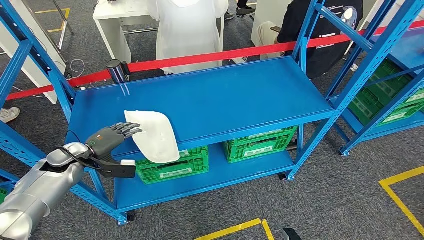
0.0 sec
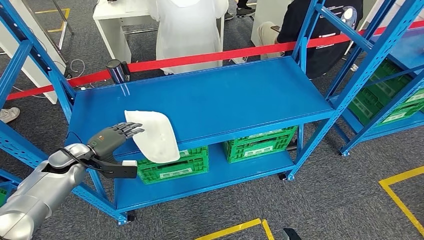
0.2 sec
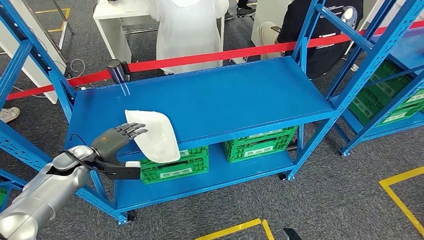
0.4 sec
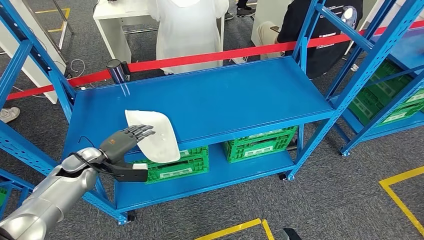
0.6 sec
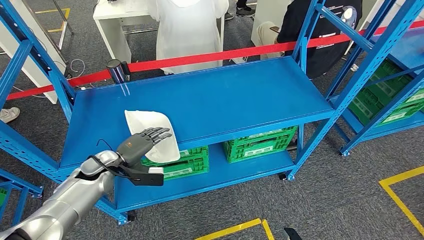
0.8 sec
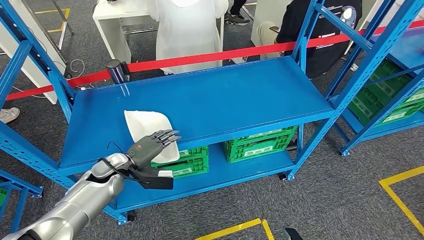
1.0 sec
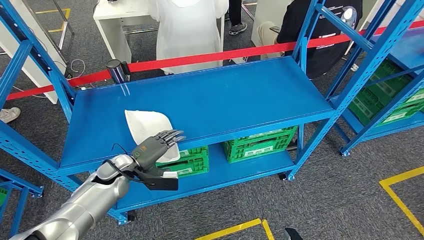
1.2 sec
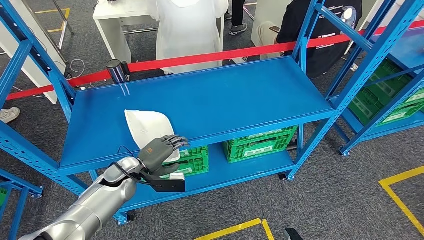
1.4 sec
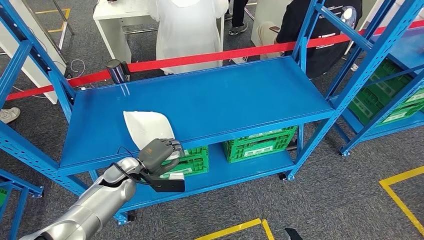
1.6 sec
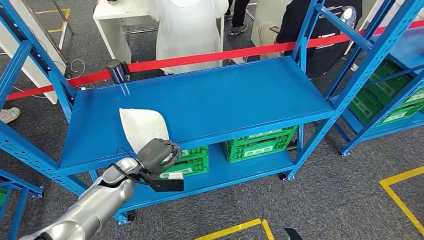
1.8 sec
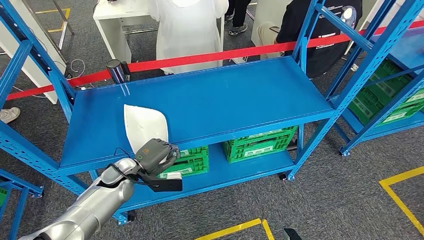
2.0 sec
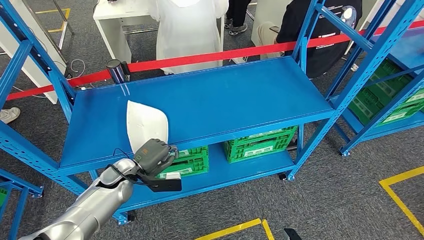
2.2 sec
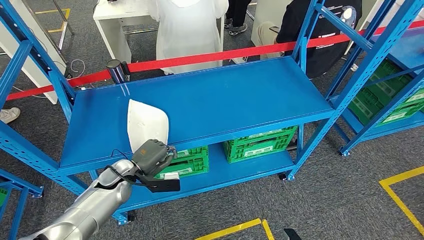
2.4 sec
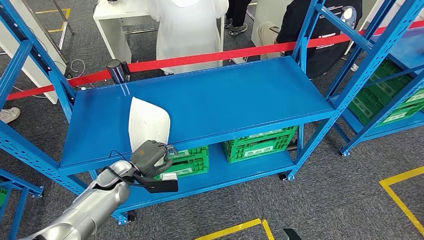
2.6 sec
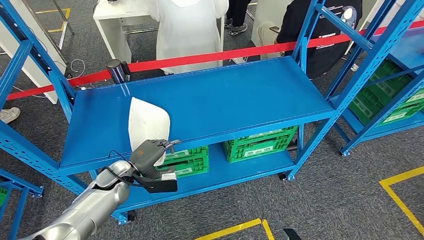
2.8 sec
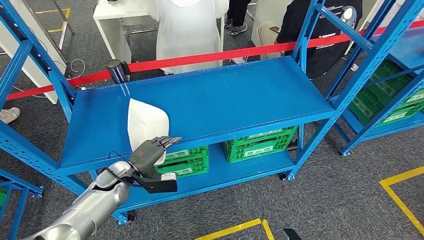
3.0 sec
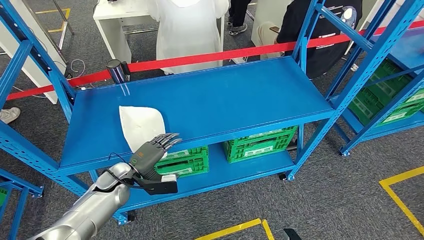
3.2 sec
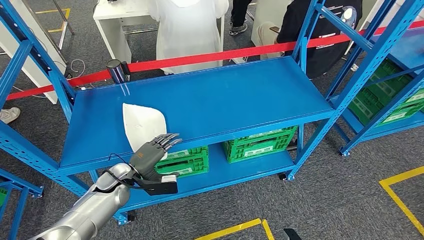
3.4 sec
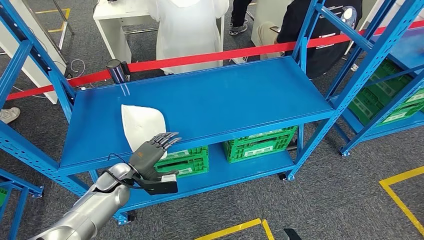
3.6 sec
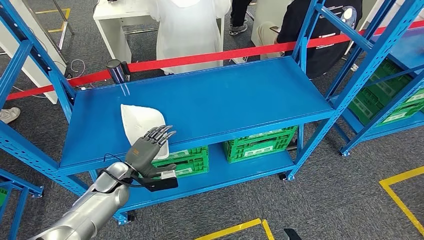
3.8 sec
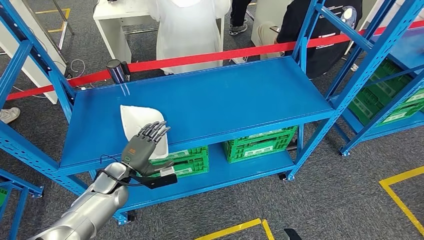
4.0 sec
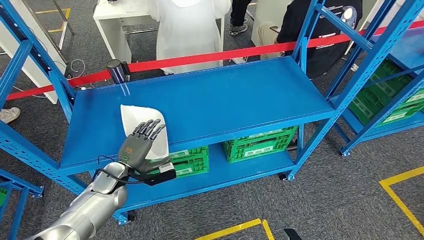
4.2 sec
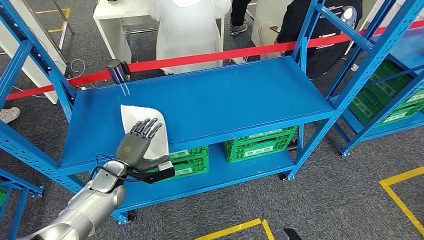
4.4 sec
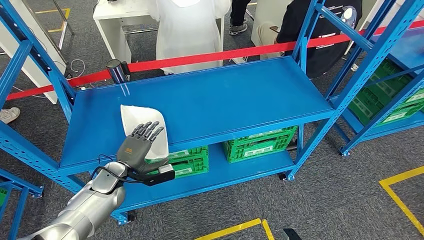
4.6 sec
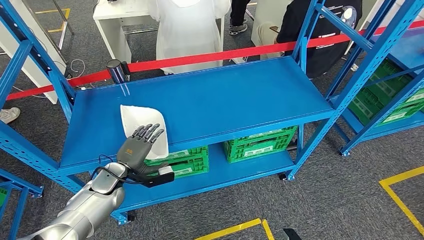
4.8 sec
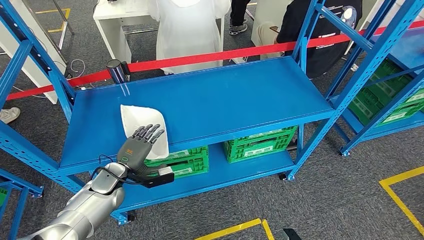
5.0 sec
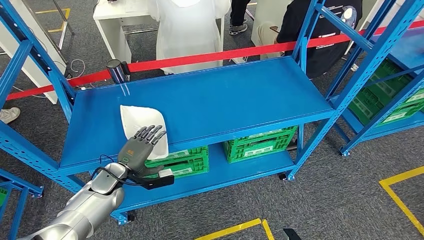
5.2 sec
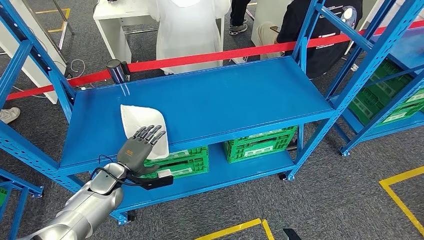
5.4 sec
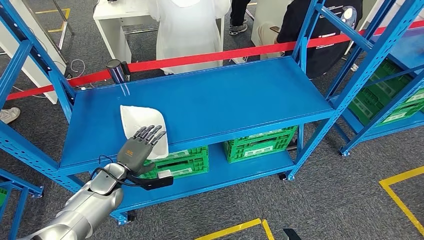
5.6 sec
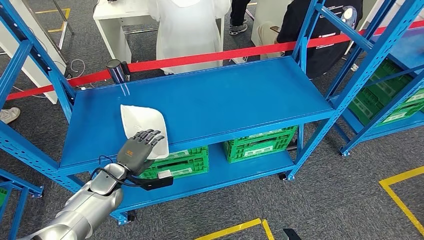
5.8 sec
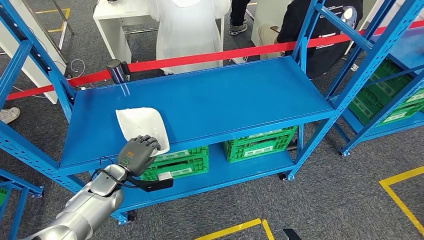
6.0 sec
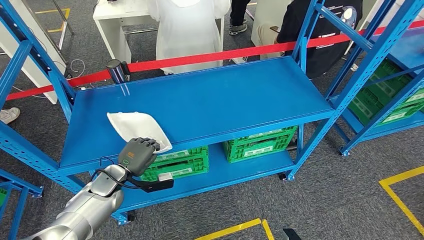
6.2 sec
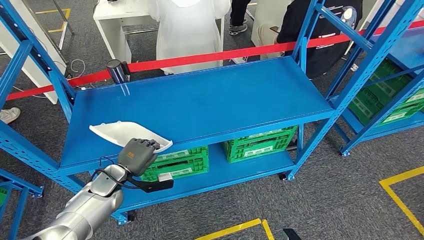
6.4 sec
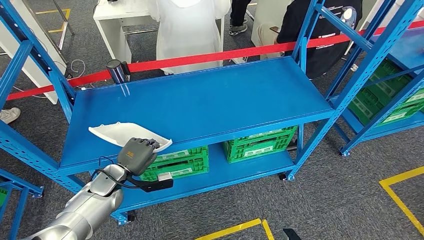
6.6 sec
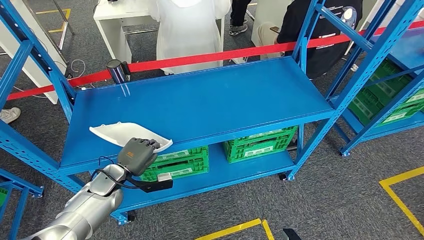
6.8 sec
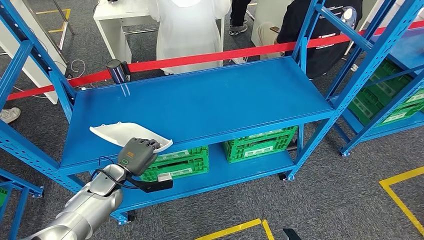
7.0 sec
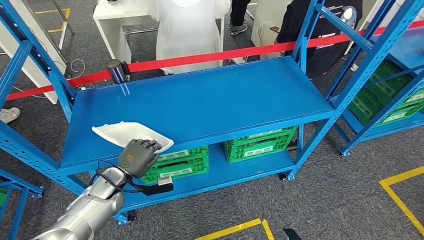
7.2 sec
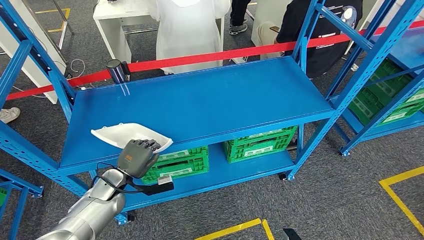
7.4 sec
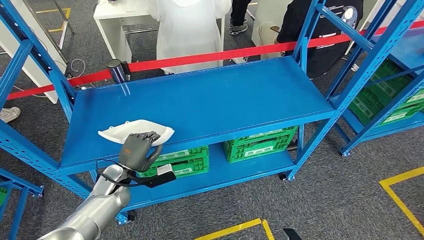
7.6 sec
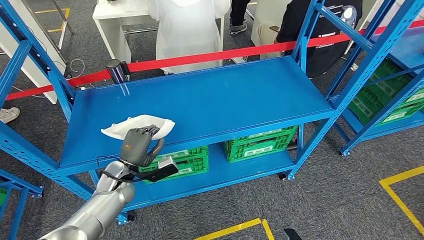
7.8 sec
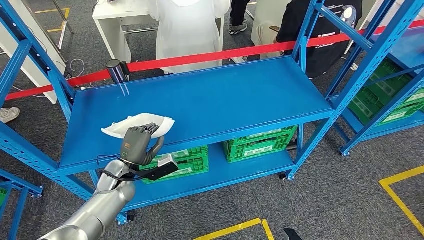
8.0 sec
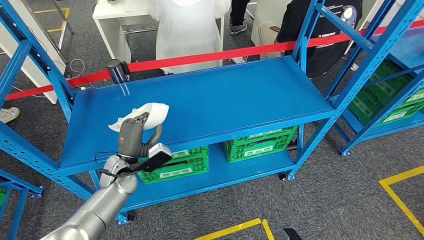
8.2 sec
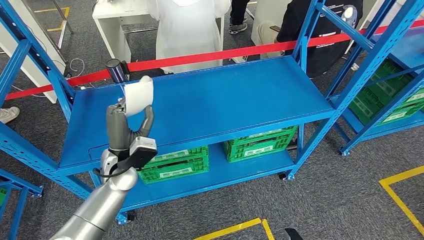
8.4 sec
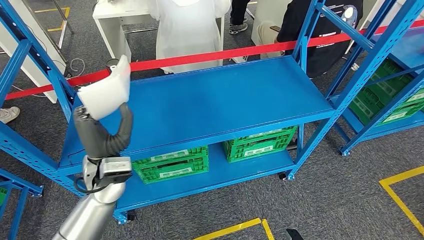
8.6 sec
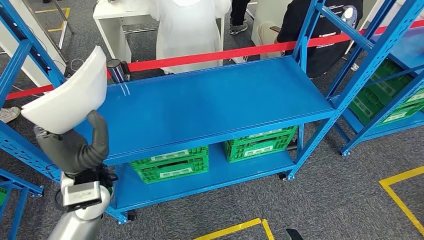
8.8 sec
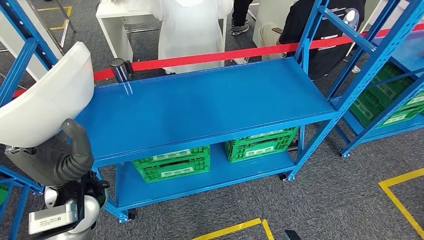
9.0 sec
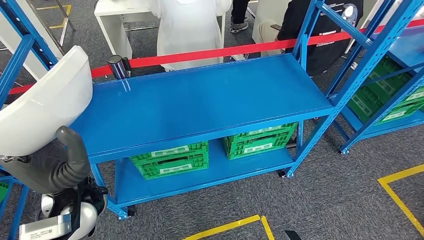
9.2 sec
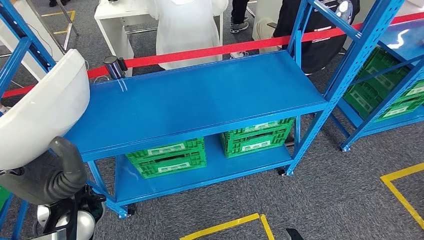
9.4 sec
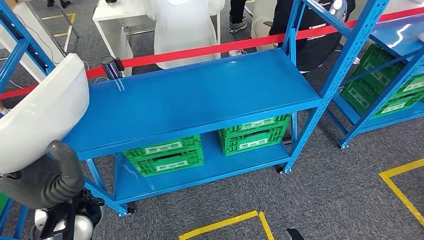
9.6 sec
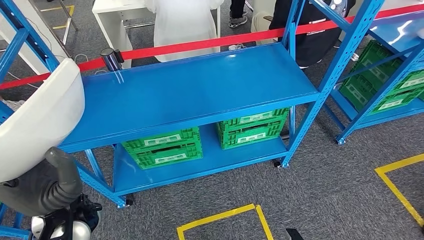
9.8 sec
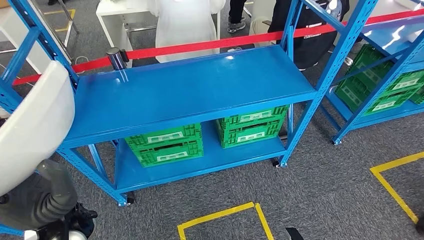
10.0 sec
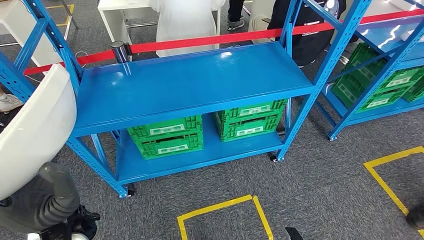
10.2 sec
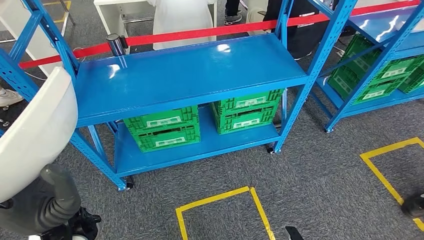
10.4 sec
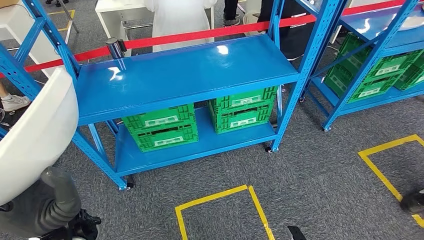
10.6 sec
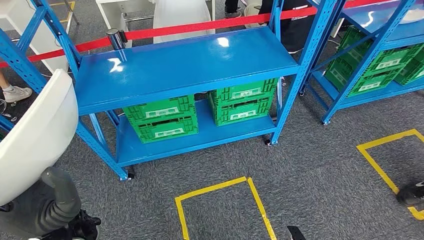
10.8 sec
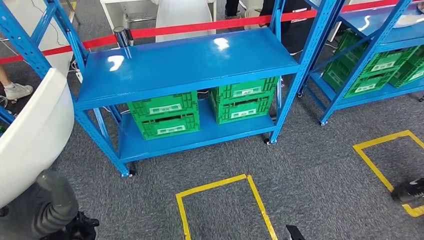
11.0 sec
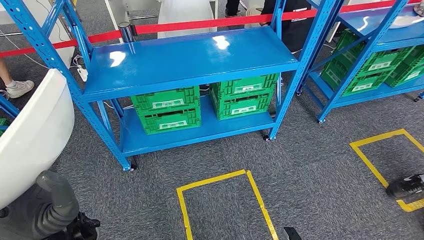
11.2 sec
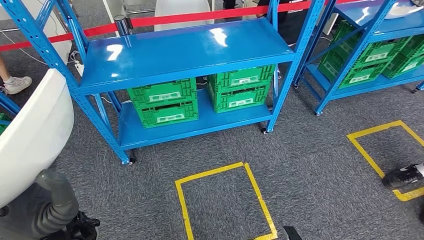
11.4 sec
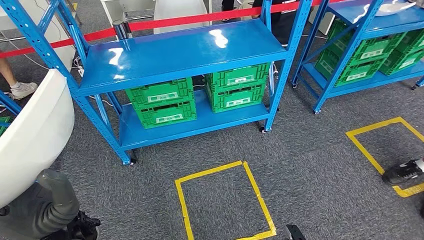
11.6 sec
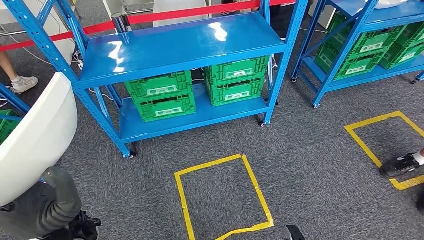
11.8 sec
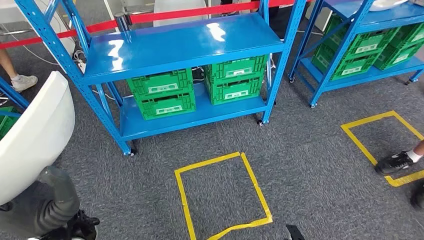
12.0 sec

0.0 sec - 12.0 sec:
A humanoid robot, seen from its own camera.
Step, 0.0 sec - 10.2 sec: Pick up the small component from the shelf.
0.0 sec - 1.6 sec: The left hand shifts roughly 15 cm to the right.
1.6 sec - 3.0 sec: The hands make only small movements.
4.4 sec - 6.0 sec: There are only small adjustments of the hands.

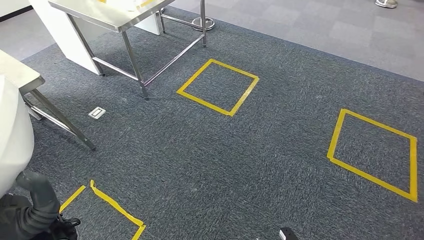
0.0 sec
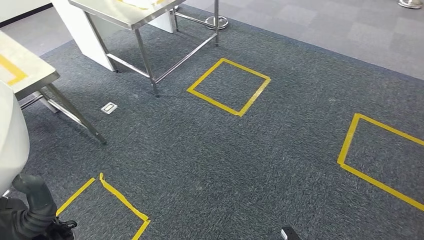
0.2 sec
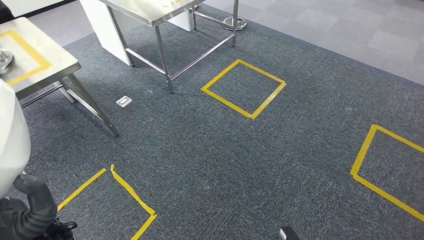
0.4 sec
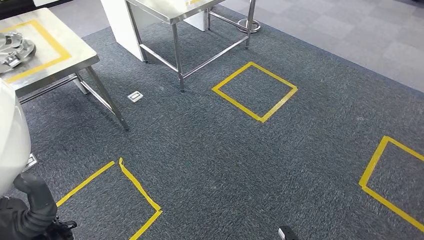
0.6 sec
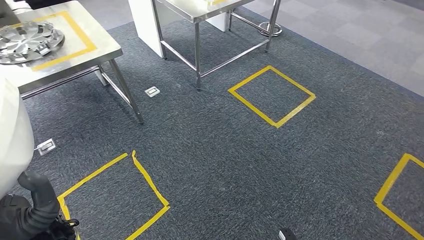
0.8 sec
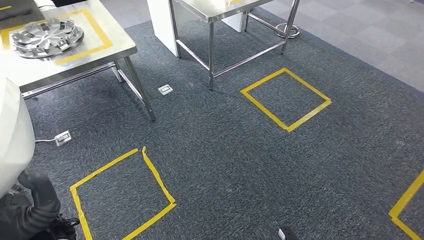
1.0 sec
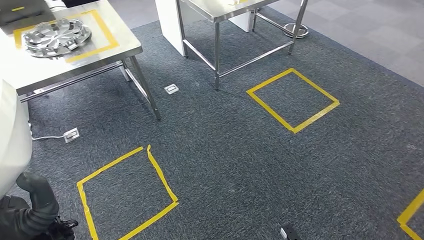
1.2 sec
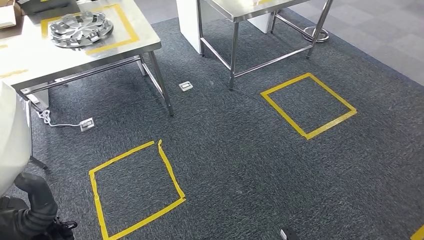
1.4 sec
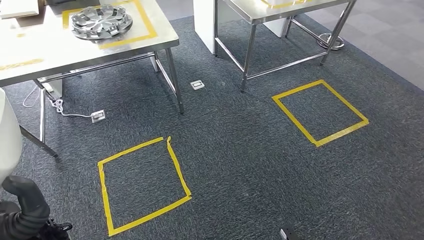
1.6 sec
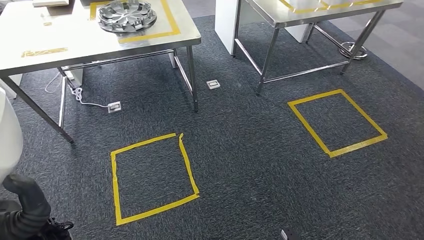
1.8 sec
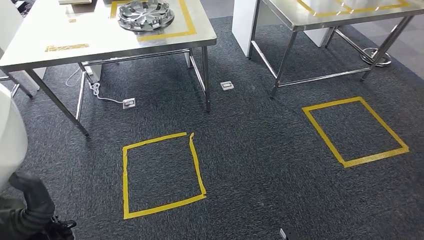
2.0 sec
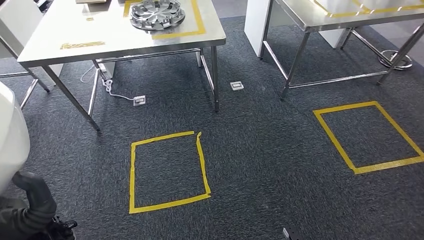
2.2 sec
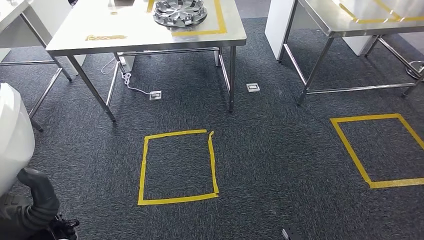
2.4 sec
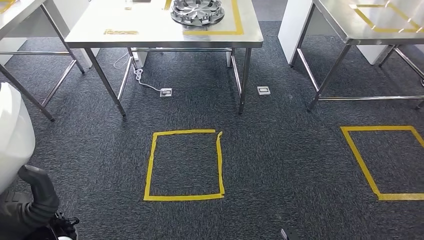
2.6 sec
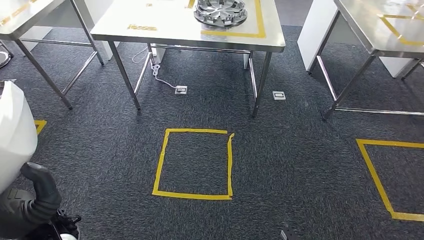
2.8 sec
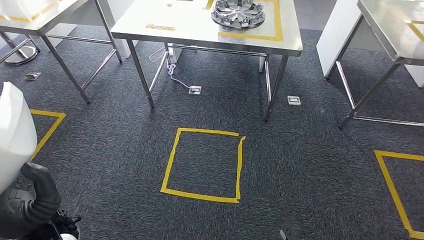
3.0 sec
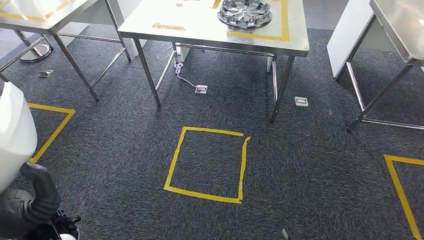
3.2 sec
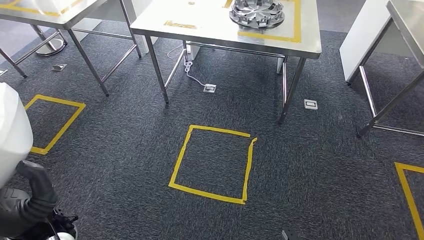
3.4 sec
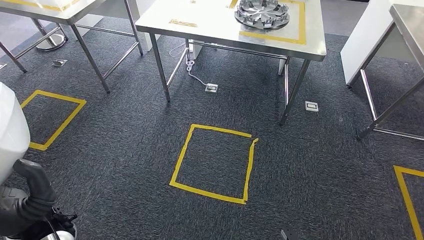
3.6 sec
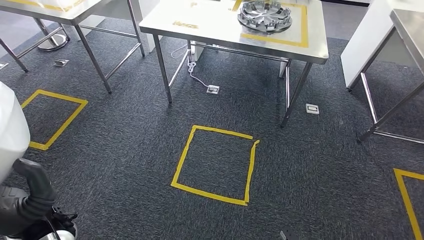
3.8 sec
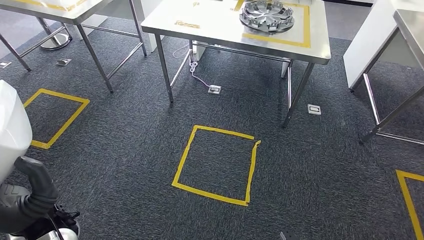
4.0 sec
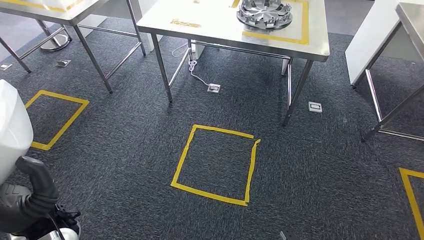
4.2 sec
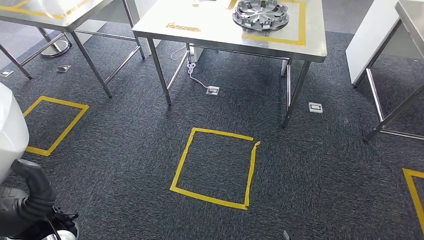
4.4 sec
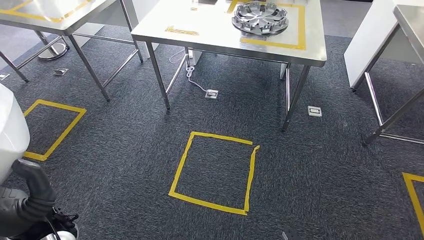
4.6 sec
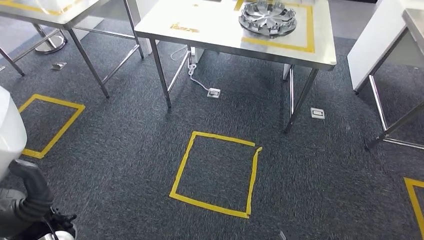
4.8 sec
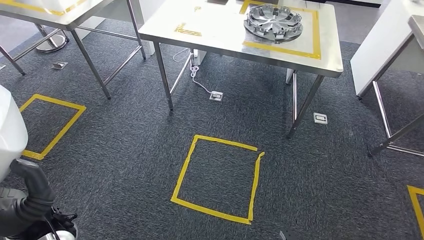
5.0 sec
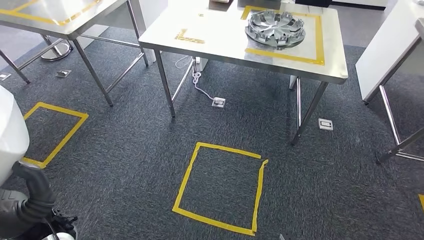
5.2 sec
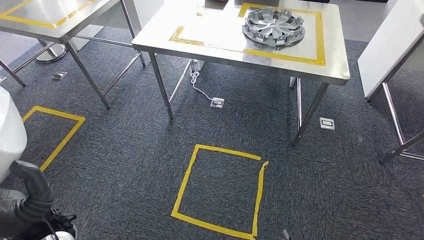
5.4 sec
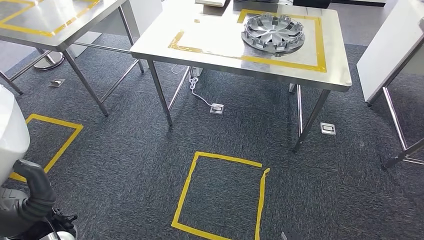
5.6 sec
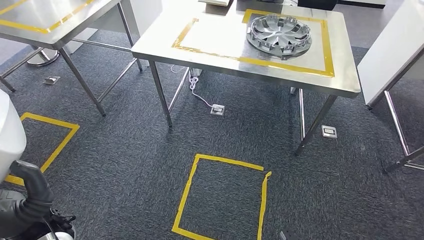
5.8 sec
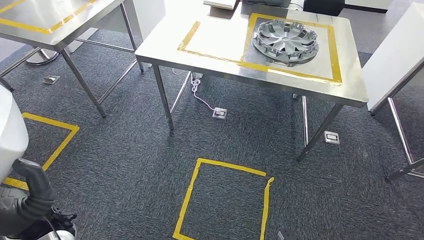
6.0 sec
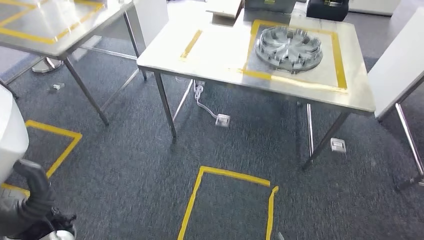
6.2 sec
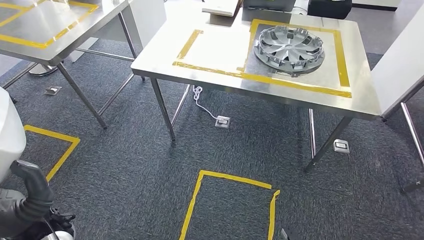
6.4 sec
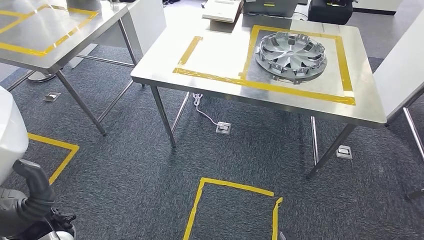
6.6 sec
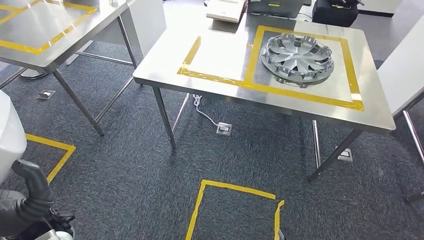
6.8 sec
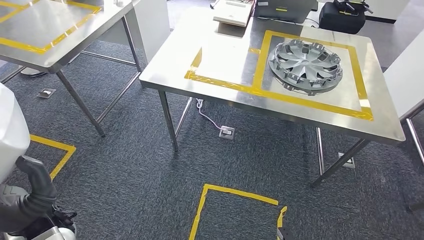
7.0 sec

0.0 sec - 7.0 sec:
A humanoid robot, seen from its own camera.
Step, 0.0 sec - 2.6 sec: Bring the small component to the front of the workbench.
